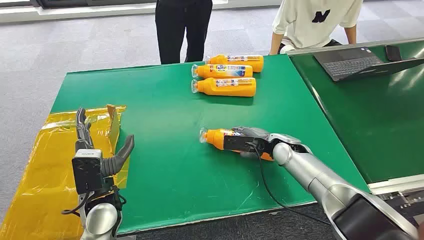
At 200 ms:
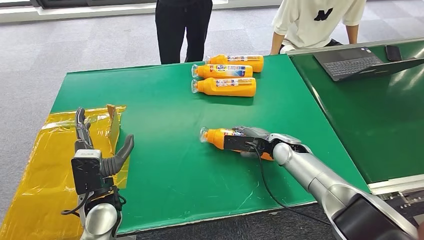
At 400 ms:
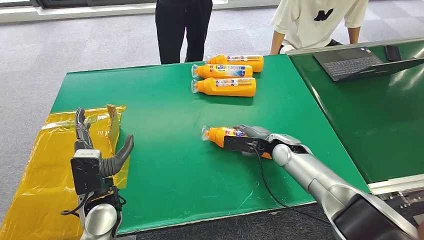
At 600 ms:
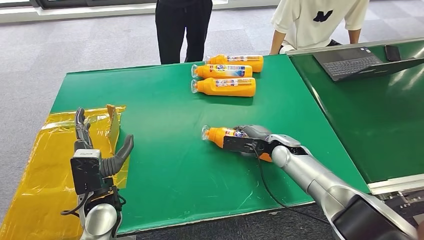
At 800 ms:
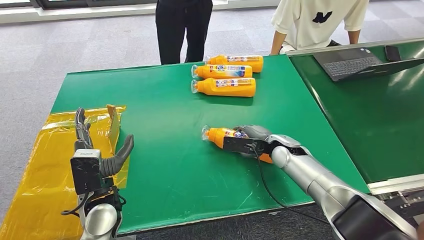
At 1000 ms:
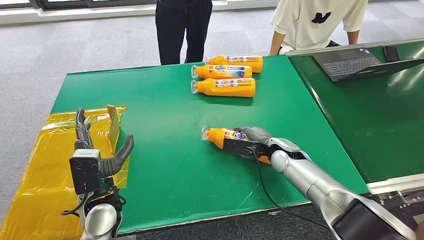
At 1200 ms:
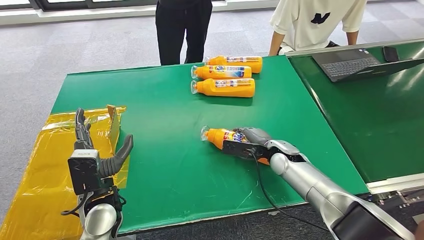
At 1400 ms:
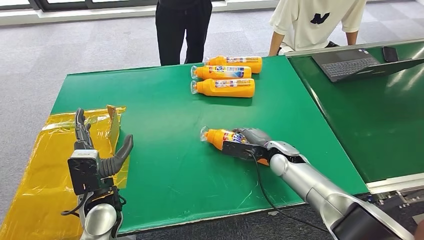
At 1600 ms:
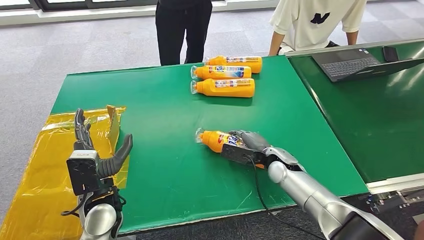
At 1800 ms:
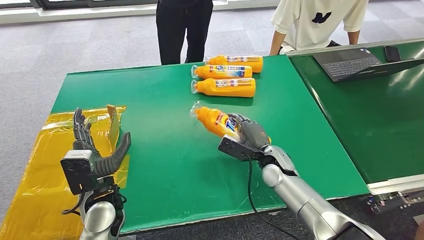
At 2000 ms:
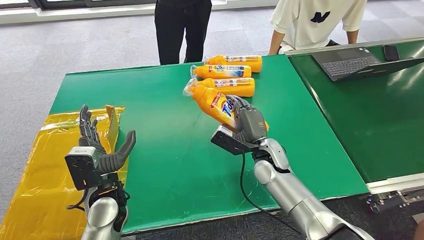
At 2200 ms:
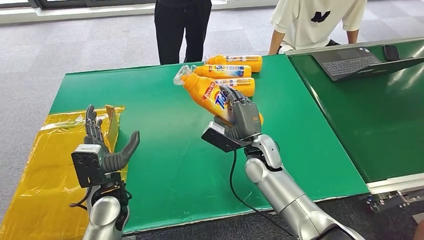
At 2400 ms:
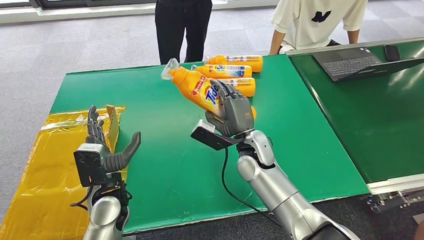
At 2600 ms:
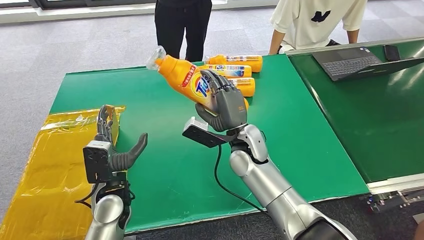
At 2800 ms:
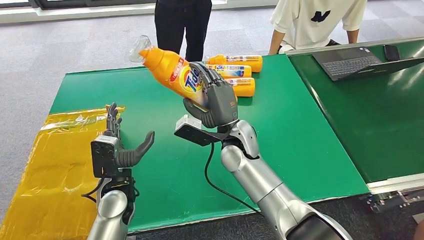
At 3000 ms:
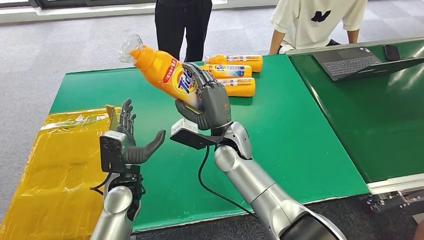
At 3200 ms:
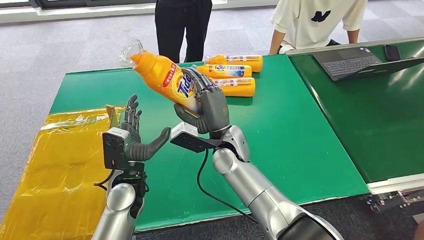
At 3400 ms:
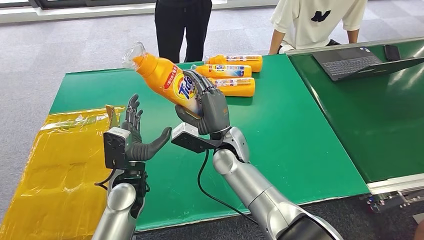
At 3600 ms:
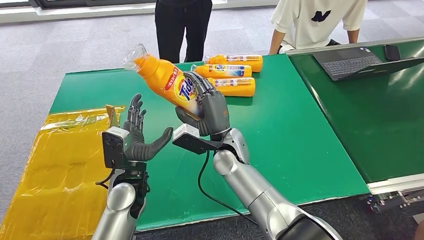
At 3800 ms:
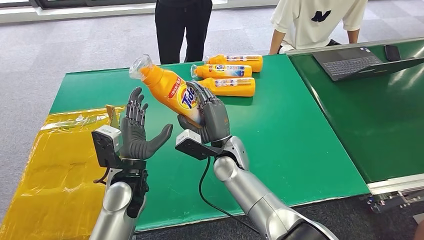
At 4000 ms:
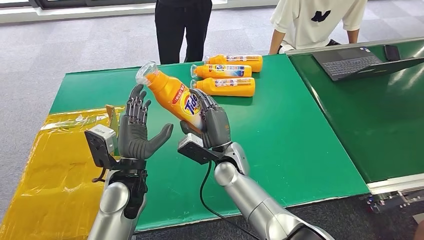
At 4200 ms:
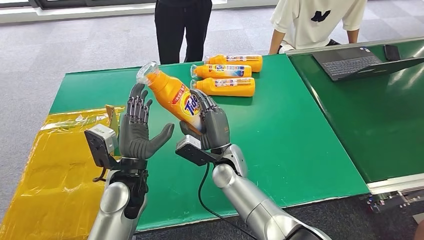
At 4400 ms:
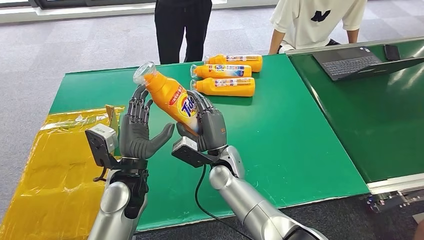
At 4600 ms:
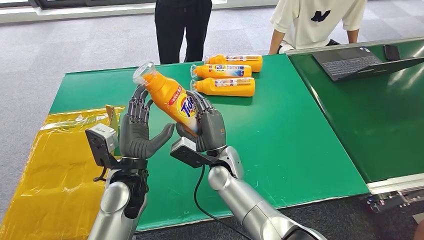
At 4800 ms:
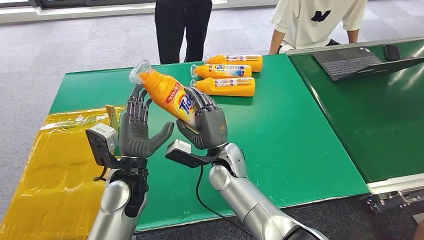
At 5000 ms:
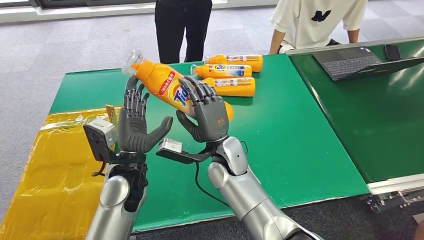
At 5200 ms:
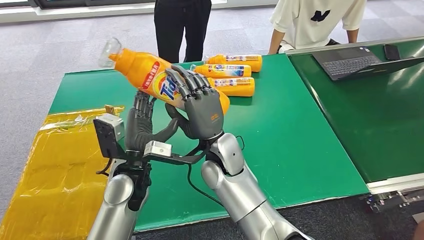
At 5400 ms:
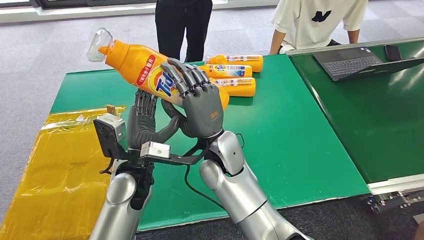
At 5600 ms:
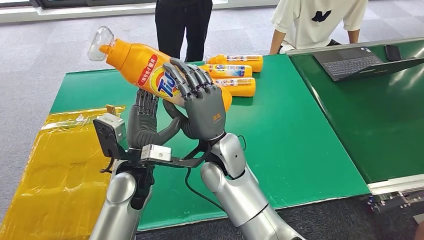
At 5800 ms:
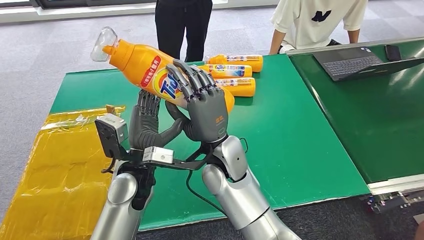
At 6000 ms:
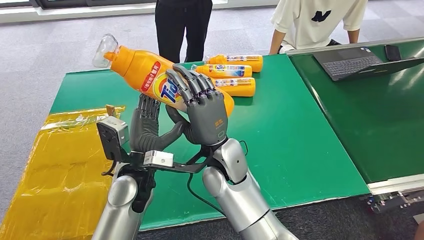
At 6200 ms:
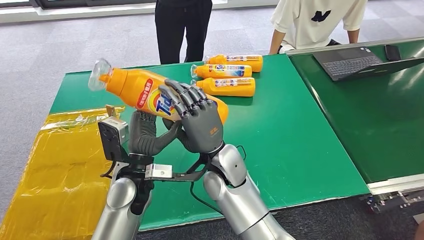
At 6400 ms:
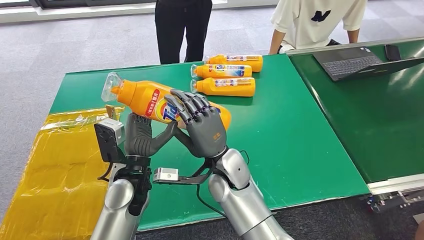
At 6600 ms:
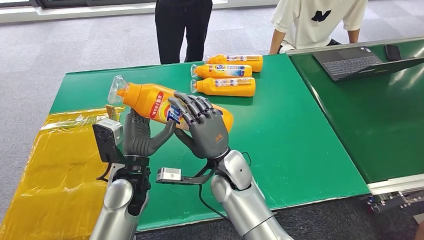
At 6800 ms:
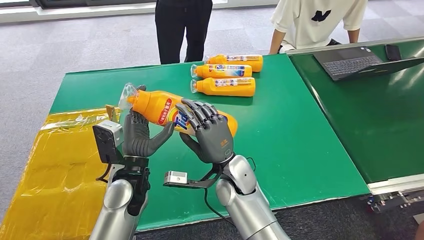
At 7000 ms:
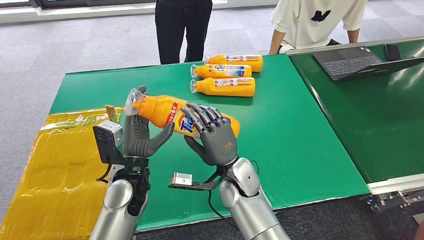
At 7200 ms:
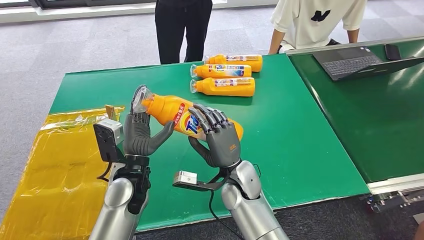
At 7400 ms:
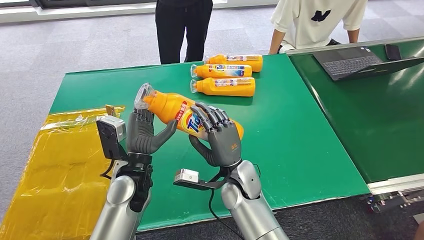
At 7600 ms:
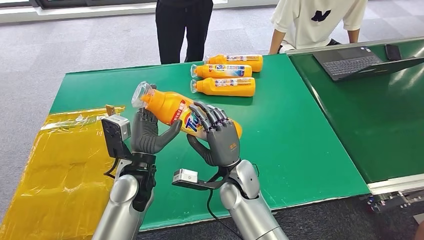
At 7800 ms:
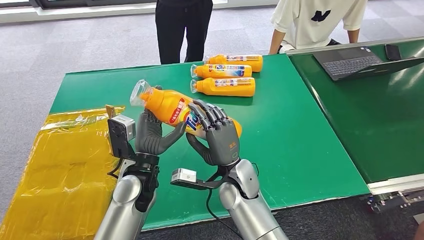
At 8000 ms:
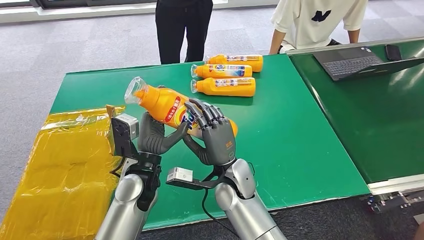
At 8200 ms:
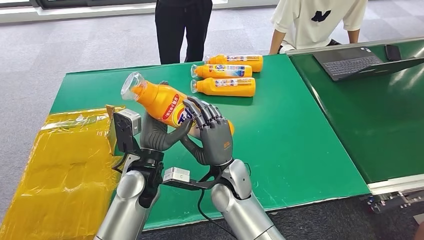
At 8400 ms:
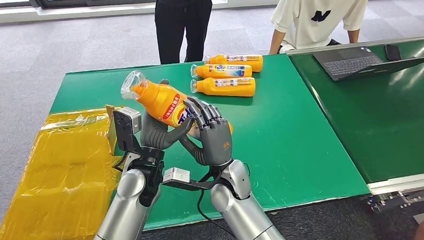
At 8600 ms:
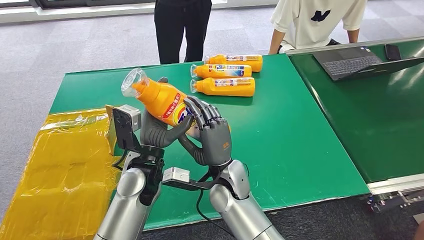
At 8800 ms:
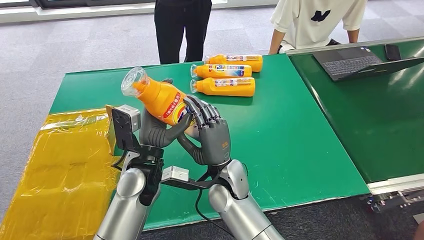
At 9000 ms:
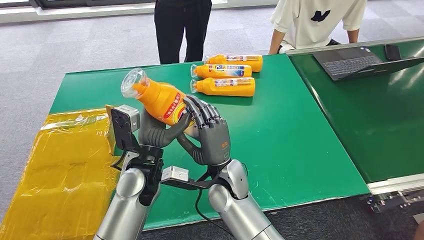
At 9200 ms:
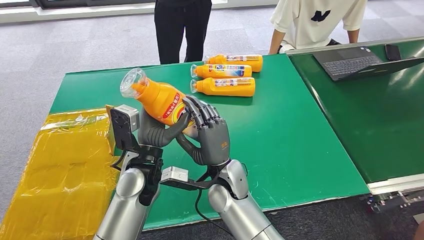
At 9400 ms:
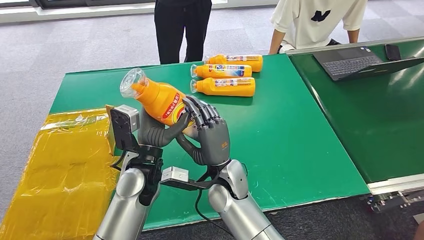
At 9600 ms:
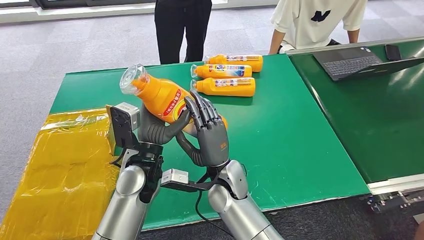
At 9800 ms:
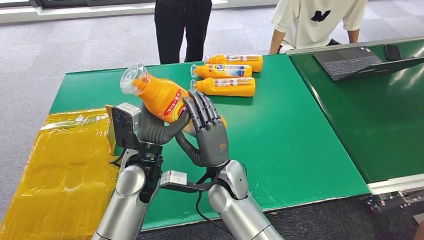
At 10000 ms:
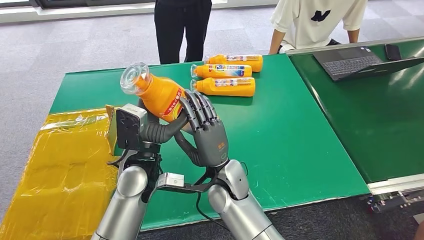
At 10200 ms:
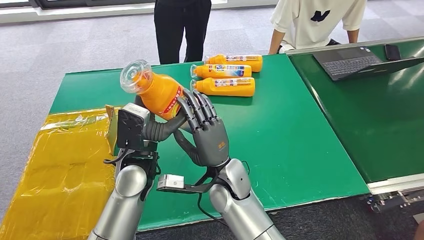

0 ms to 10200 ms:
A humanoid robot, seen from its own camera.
Step, 0 ms to 2400 ms: Pick up the bottle from the table.
3000 ms to 4400 ms: The left hand ends up about 5 cm from where it was. Meanwhile the right hand shifts about 5 cm downward.
4400 ms to 5800 ms: The right hand heads upward, covering about 10 cm.
5800 ms to 7200 ms: The right hand travels downward by roughly 10 cm.
7200 ms to 10200 ms: The hands stay close to where they were, moving slightly.

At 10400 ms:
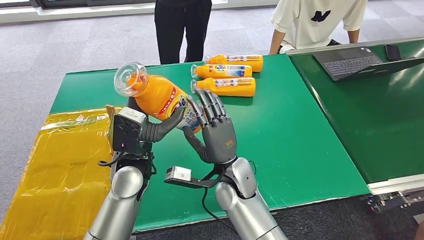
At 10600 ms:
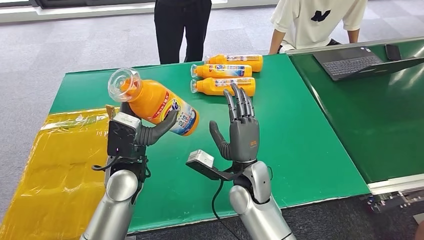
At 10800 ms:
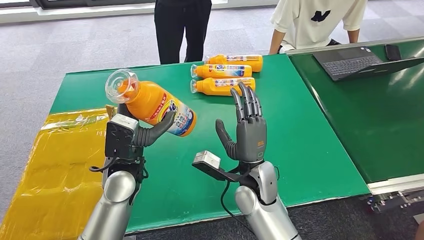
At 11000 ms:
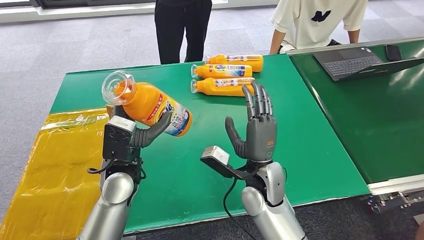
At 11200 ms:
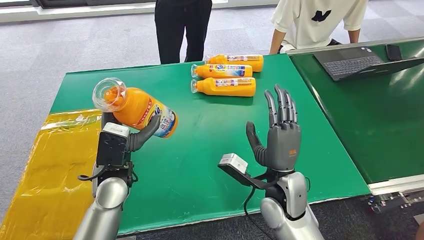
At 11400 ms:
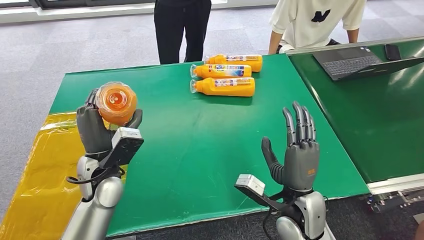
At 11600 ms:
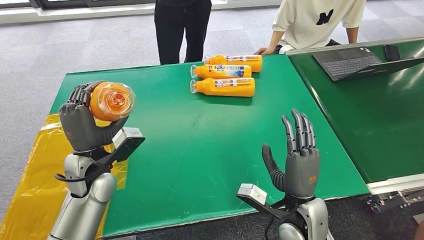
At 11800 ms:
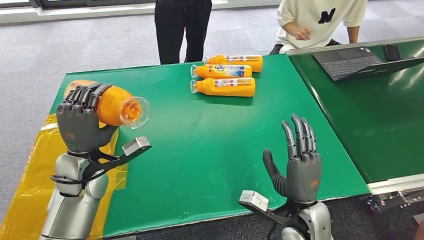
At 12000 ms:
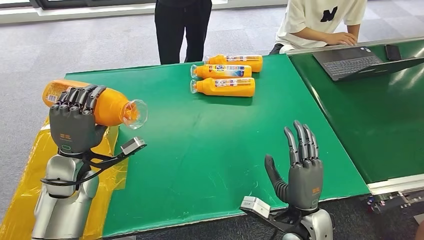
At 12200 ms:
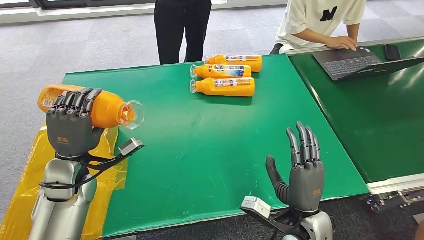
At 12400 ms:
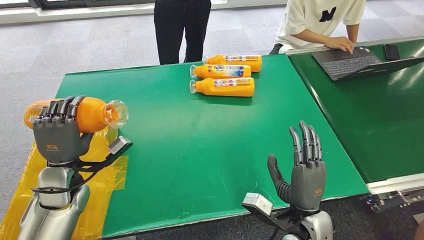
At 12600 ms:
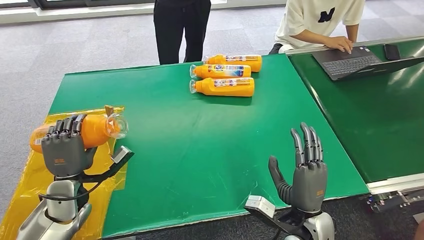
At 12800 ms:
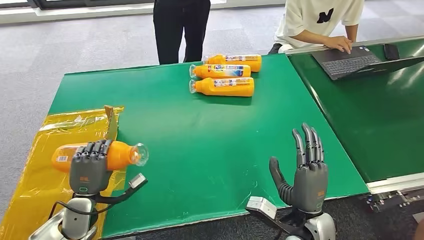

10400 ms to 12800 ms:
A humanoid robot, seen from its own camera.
Step, 10400 ms to 12600 ms: Turn the bottle to the front side.
11600 ms to 12800 ms: The left hand shifts roughly 15 cm downward, to the left and backward.

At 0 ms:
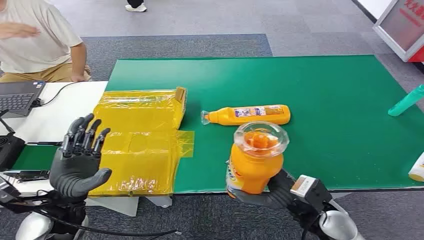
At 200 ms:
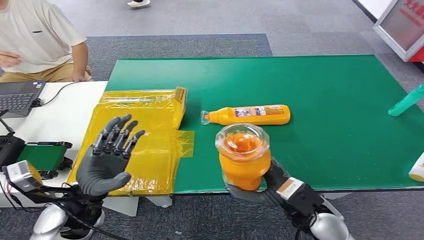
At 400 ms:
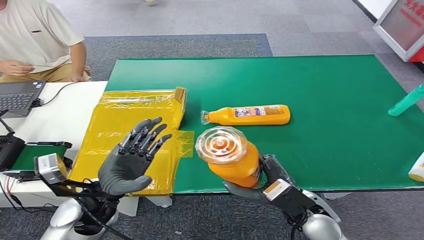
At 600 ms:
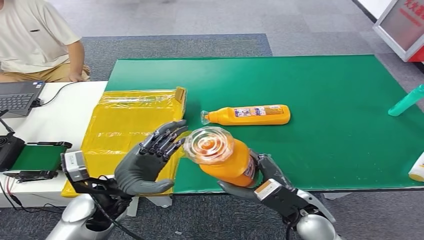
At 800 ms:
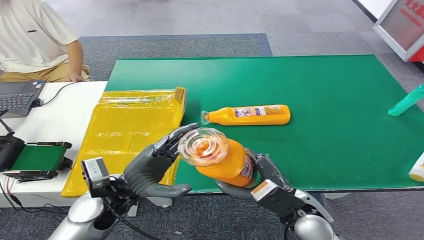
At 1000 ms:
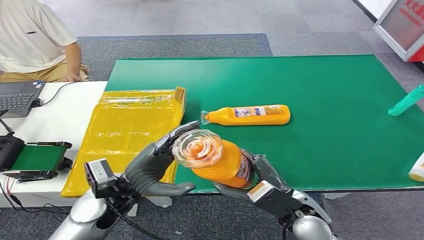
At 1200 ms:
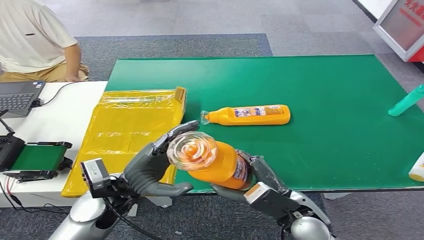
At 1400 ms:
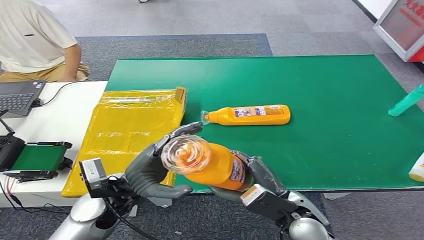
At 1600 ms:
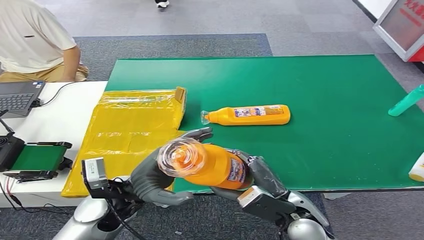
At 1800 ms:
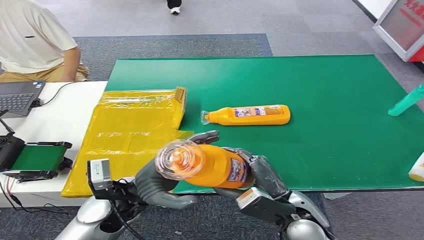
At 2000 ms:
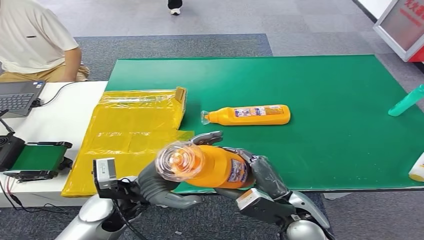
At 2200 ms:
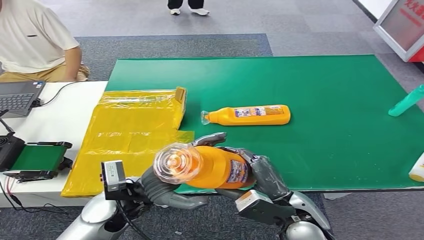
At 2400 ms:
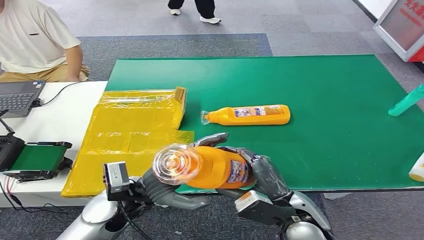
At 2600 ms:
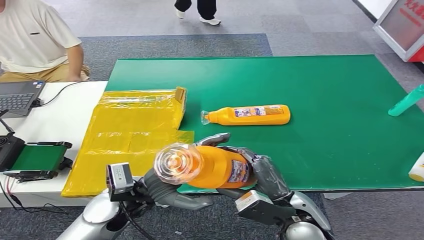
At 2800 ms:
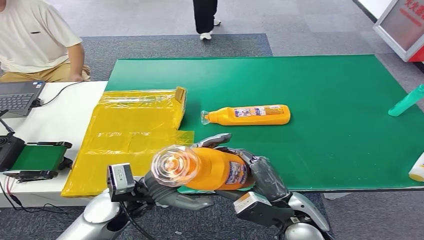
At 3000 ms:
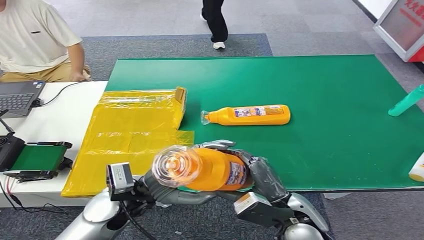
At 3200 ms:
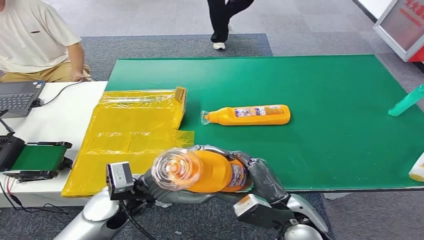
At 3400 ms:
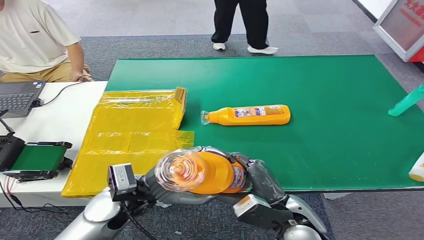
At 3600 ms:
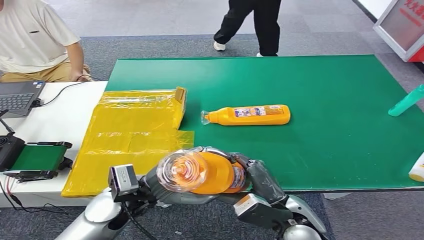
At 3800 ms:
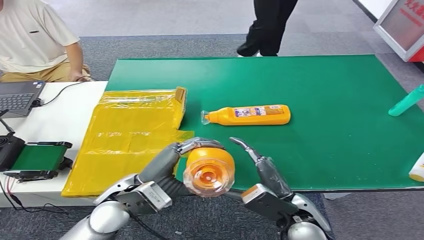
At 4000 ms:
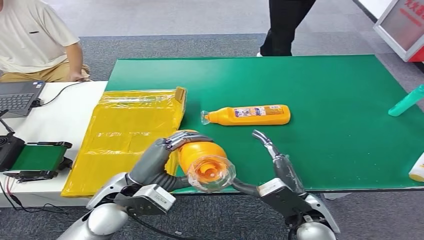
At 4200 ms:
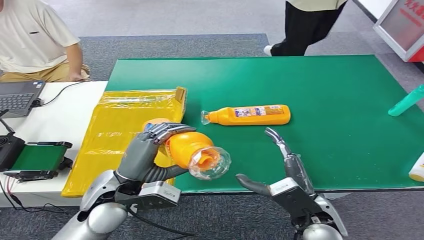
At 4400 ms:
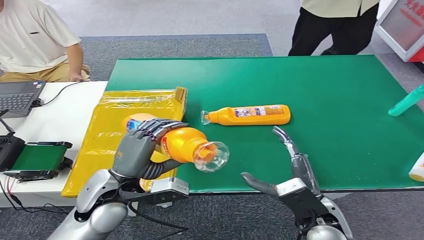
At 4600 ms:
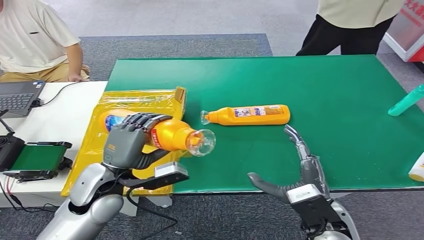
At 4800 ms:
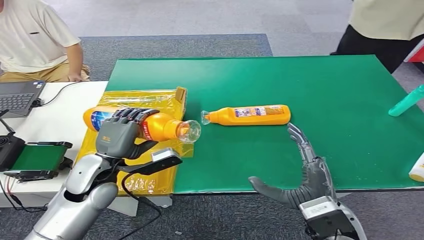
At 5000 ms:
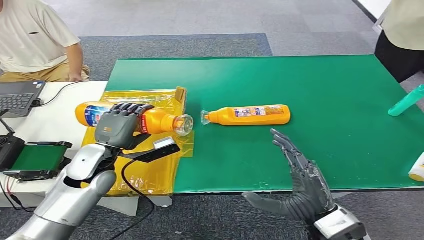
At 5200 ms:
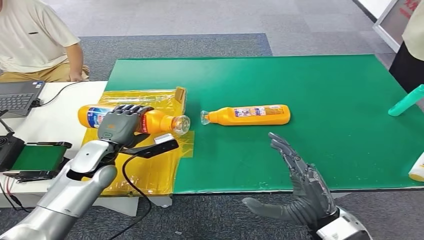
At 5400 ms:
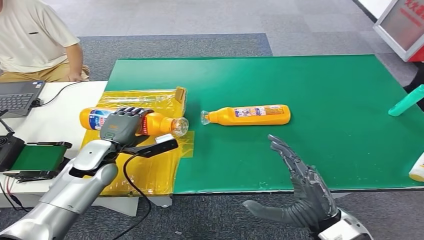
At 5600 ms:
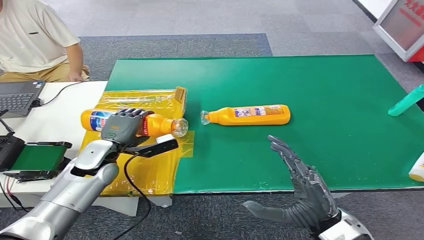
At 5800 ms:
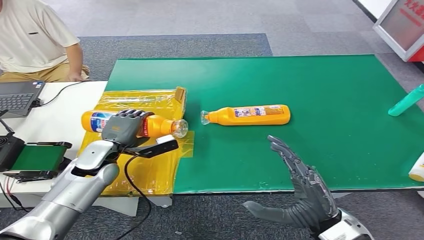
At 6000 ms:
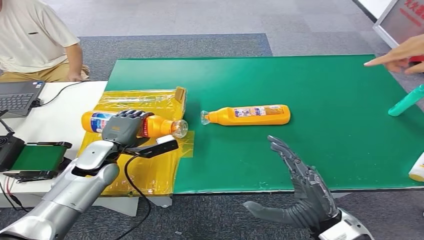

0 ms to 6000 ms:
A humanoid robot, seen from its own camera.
Step, 0 ms to 3800 ms: Pick up the bottle from the table.
1600 ms to 3000 ms: The hands move only a little.
